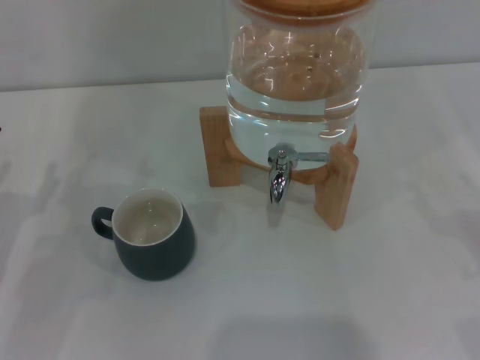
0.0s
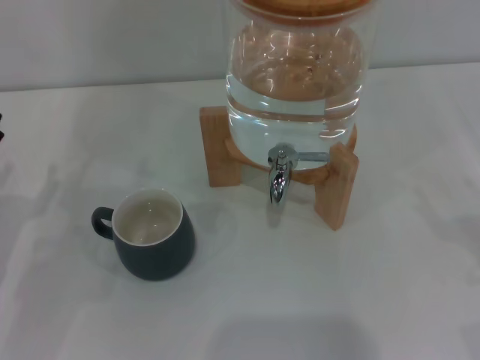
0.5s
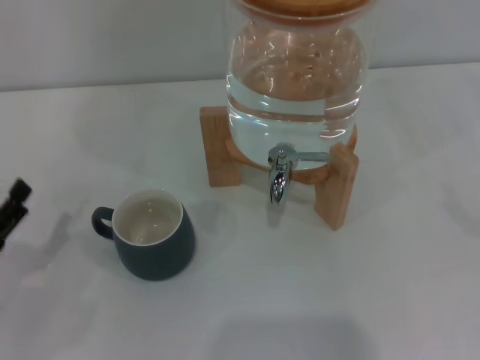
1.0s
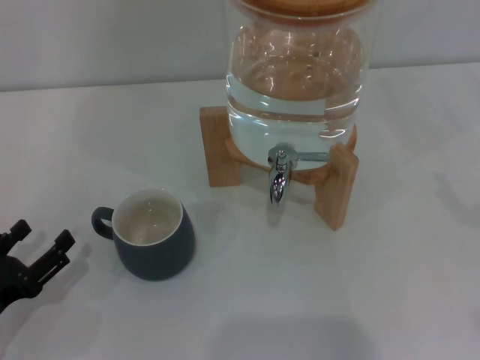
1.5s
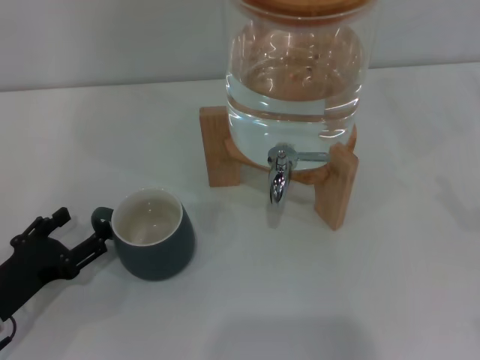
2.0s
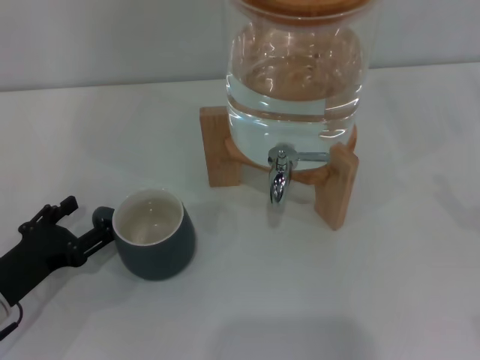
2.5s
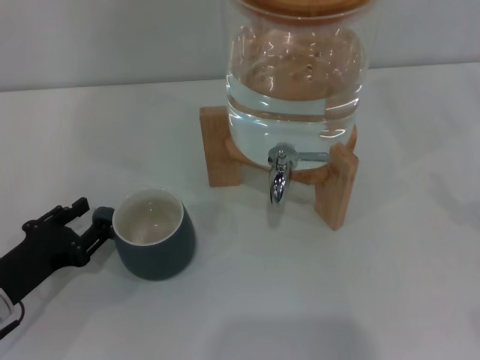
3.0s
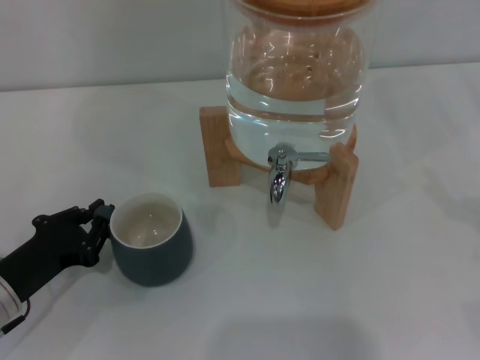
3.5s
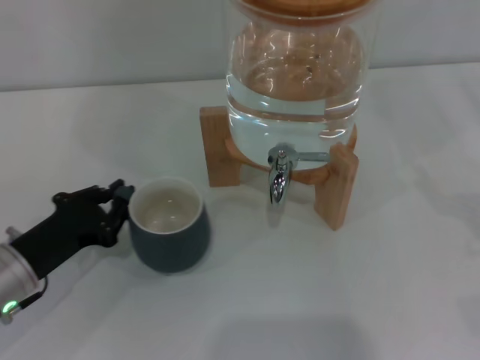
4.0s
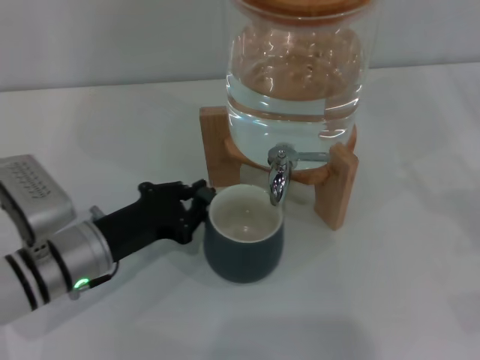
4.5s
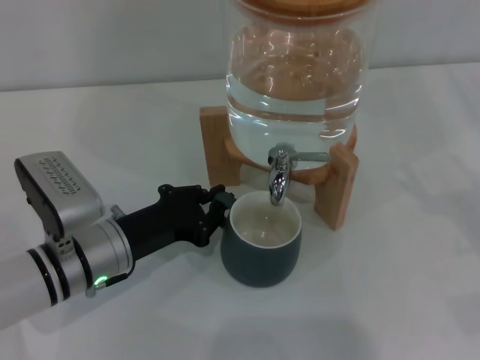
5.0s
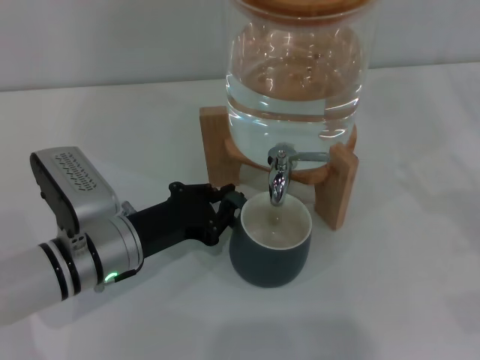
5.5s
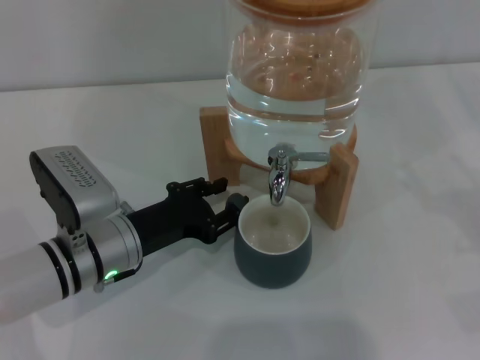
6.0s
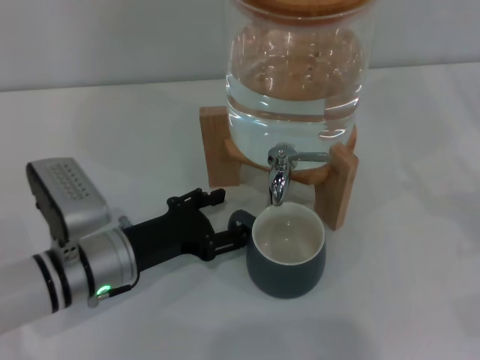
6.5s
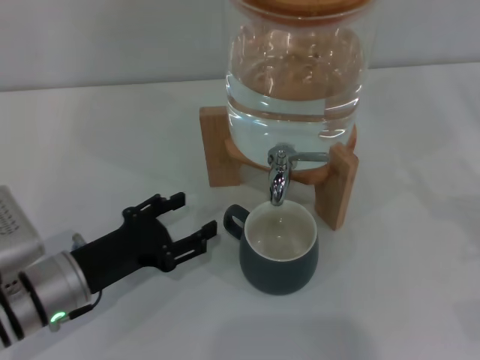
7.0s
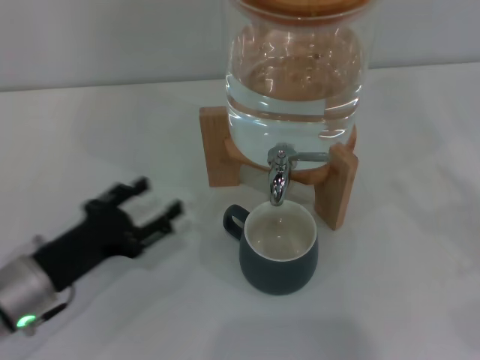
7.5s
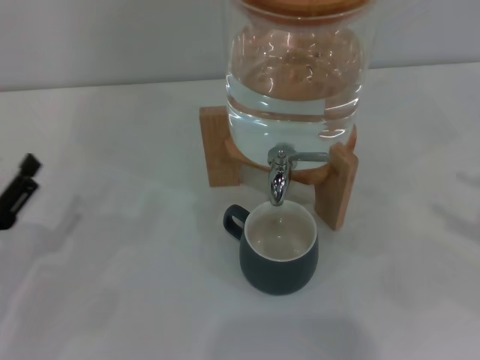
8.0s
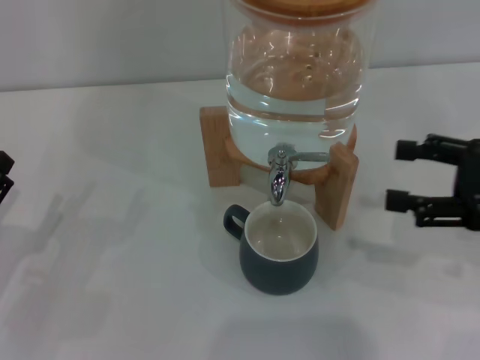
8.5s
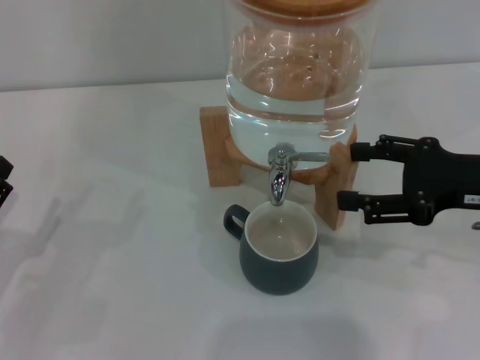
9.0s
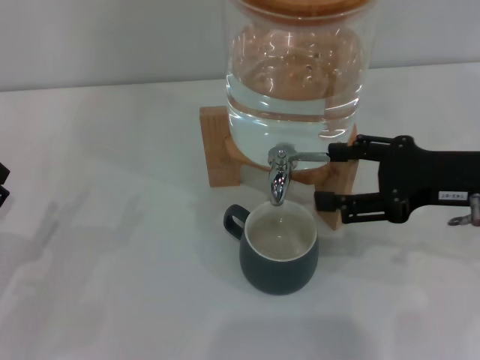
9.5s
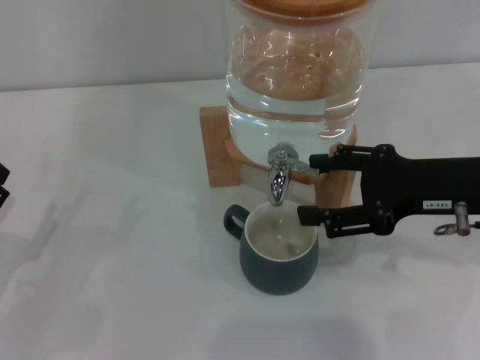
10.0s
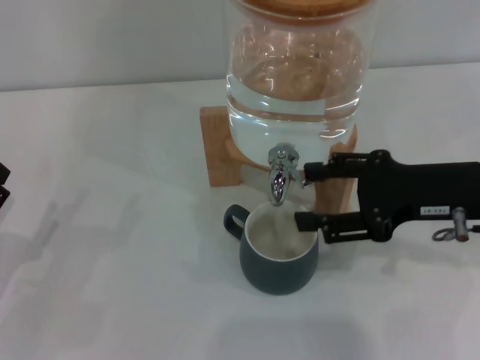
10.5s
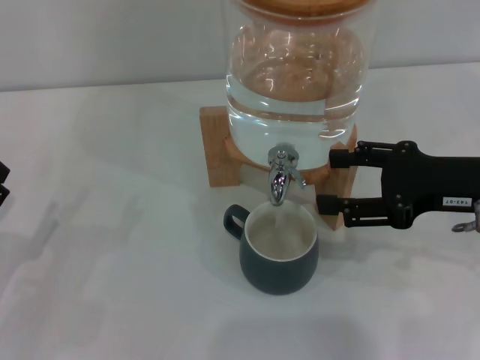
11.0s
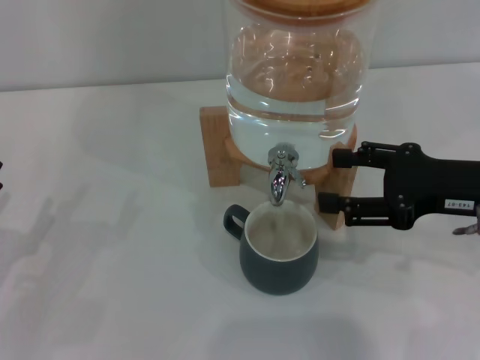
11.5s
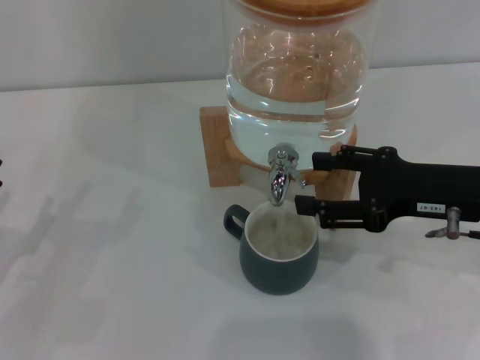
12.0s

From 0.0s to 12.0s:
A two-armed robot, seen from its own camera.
Task of the whole recording: the left gripper pick up the black cup and place it horizontally under the faucet, the right gripper turn on the faucet to fill the cup, and then turn off the faucet.
Step, from 0.0s to 7.0s: Move the cup beneath the water dispenser nozzle with the left gripper.
From 0.0s to 2.0s: The left gripper changes place by approximately 5 cm.
From 2.0s to 4.0s: The left gripper moves about 5 cm, and closes its fingers.
From 4.0s to 6.0s: The left gripper moves to the right, about 10 cm.
From 6.0s to 8.0s: The right gripper shifts some 5 cm upward; the left gripper moves to the left and backward, approximately 15 cm, and opens up.
From 8.0s to 10.0s: The right gripper heads to the left and forward, covering approximately 15 cm.
From 10.0s to 12.0s: The grippers stay close to where they were, moving slightly.

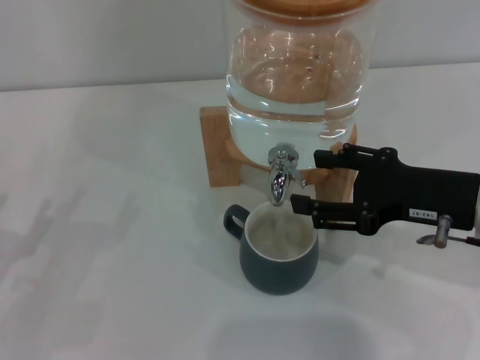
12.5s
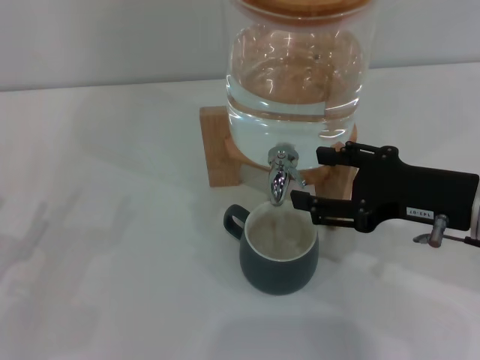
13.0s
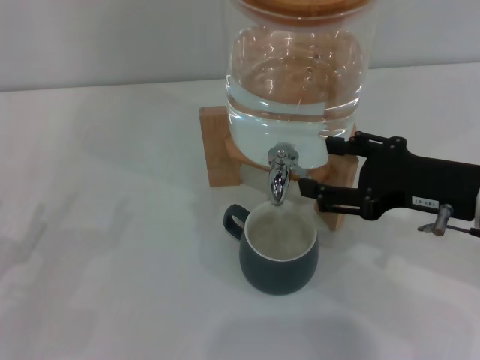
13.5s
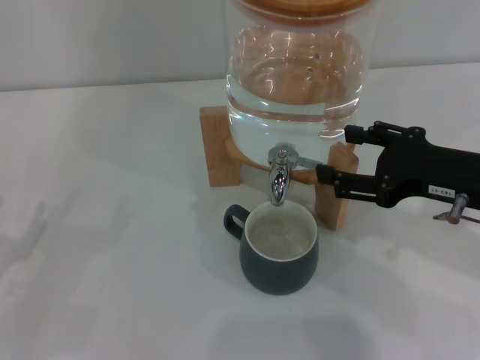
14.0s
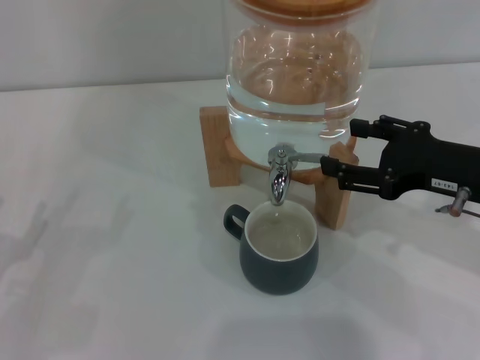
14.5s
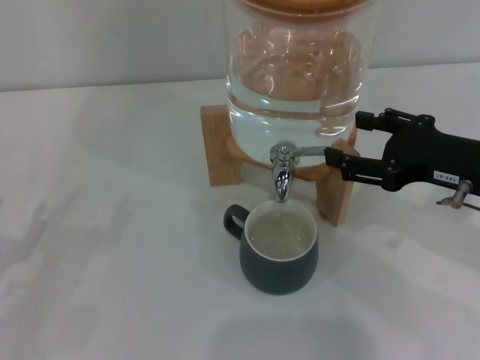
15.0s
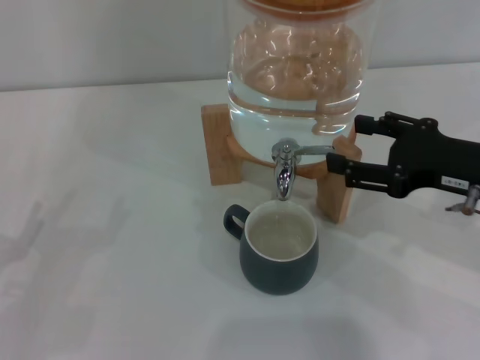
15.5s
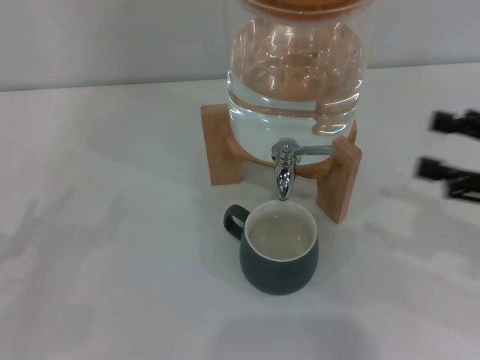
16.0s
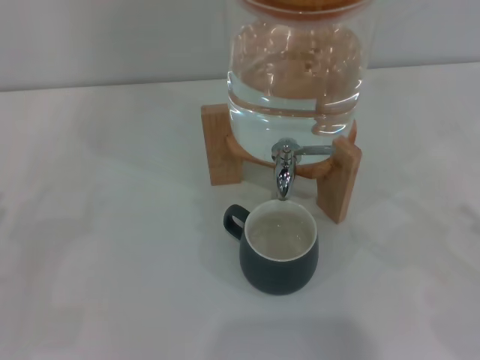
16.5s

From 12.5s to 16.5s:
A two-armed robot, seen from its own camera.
Task of the whole recording: the left gripper pick up the black cup and place it horizontally under the faucet, the right gripper turn on the faucet to fill the cup, and then turn off the faucet.
Step, from 13.5s to 15.5s: Close the dispenser valve with the right gripper.
From 12.5s to 14.5s: There are only small adjustments of the grippers.
From 14.5s to 16.5s: The right gripper heads to the right and backward, covering some 20 cm.

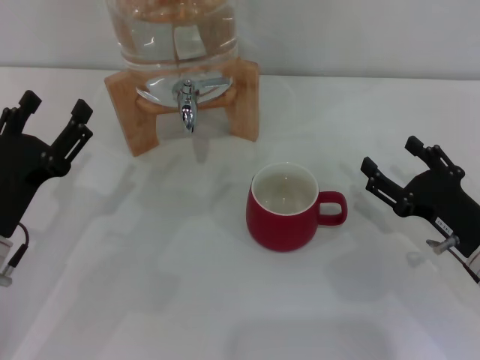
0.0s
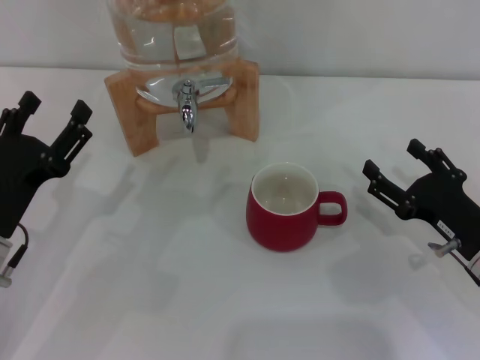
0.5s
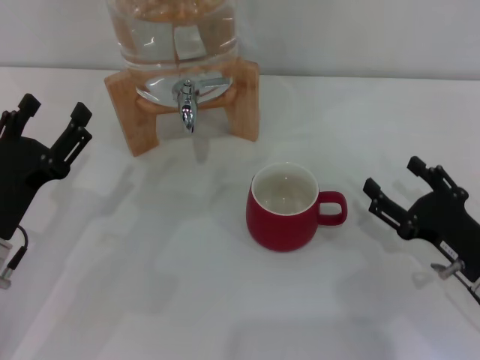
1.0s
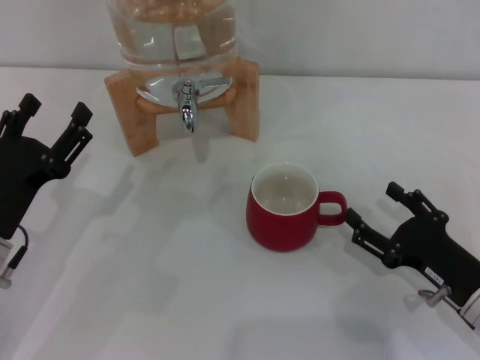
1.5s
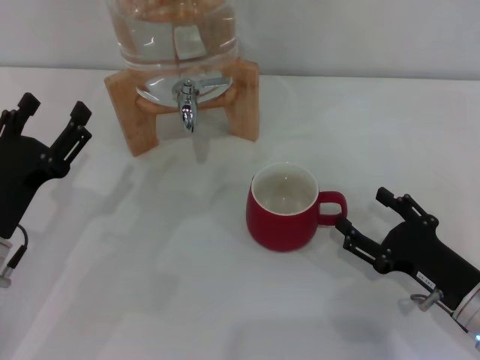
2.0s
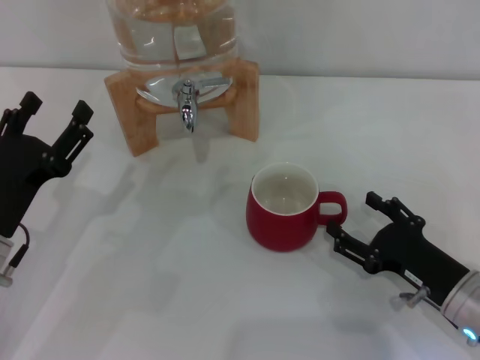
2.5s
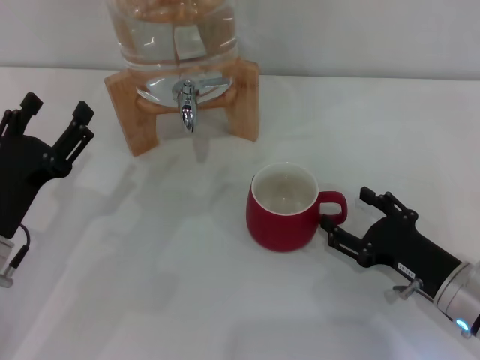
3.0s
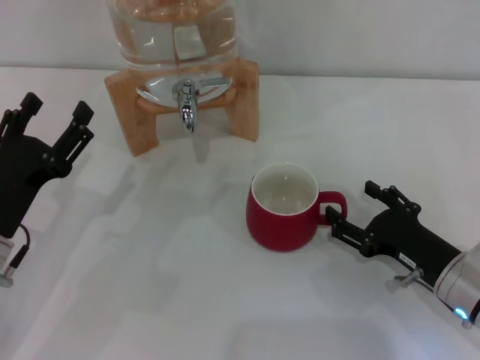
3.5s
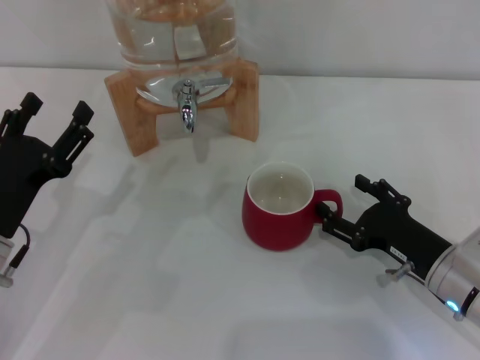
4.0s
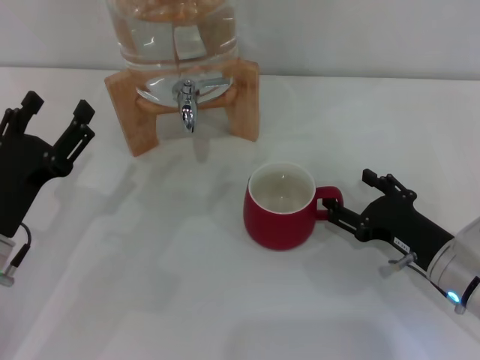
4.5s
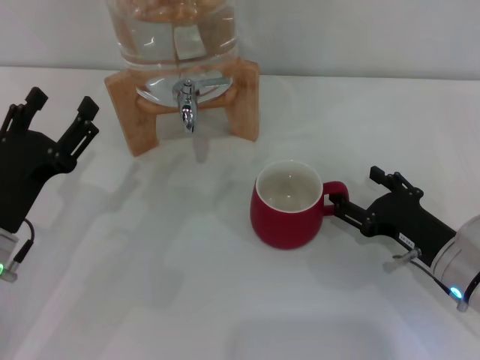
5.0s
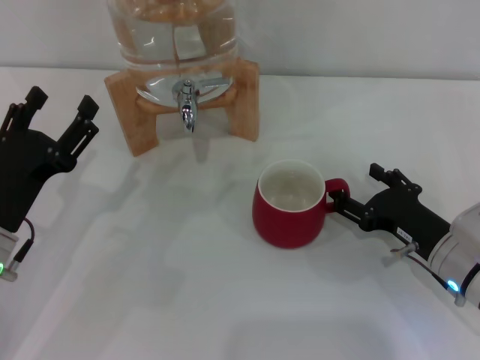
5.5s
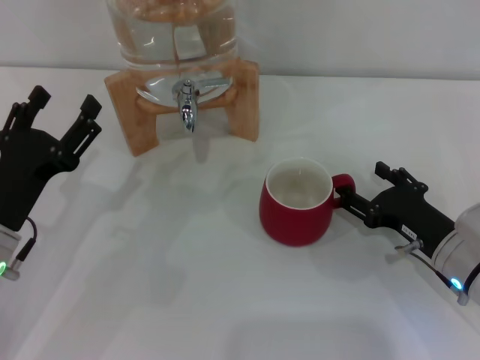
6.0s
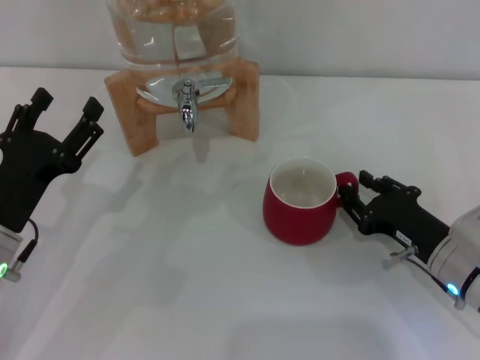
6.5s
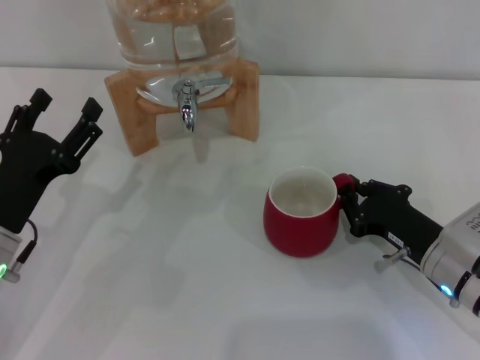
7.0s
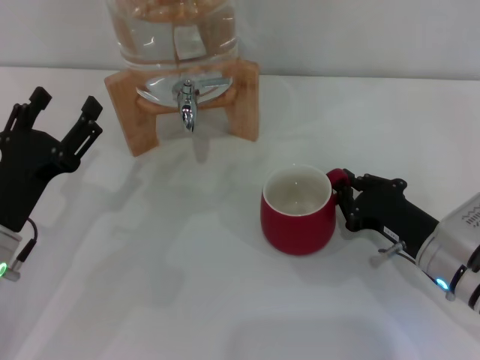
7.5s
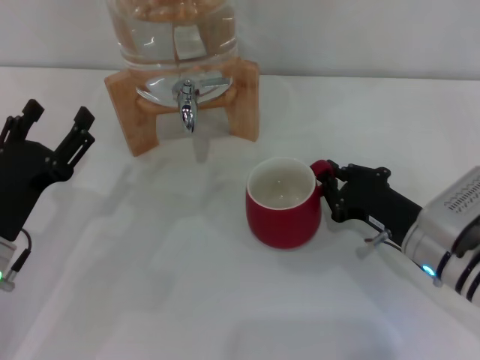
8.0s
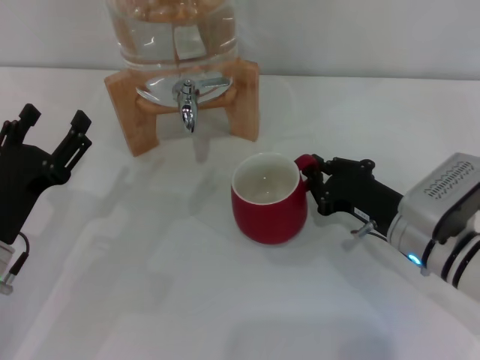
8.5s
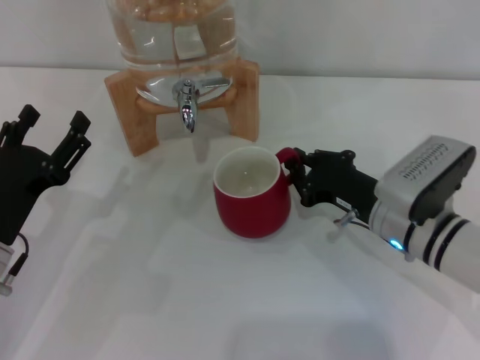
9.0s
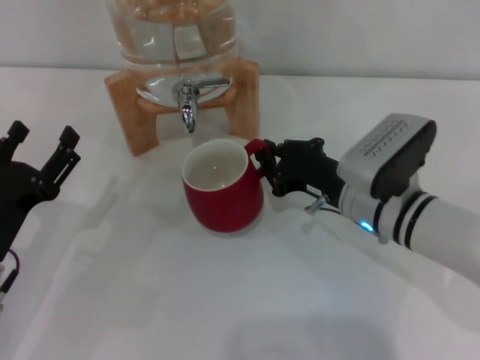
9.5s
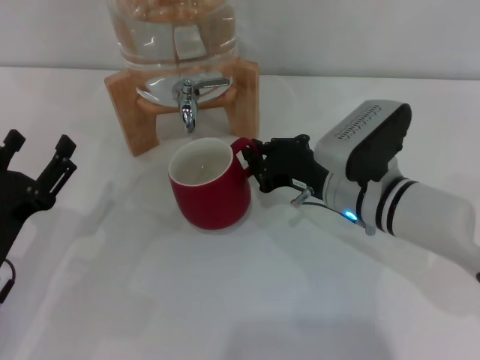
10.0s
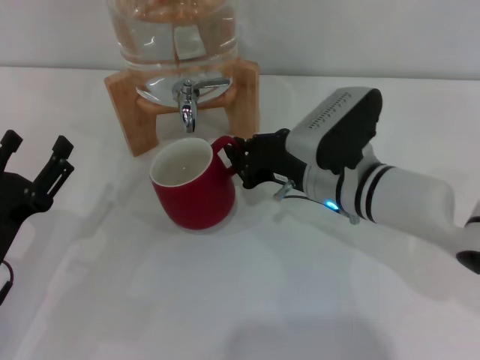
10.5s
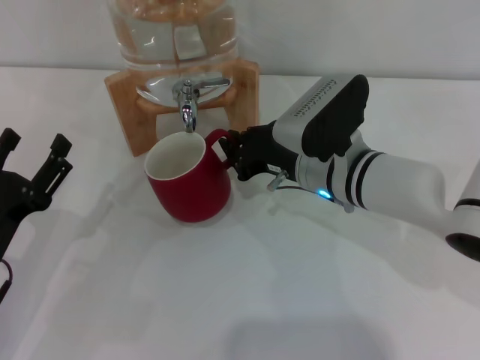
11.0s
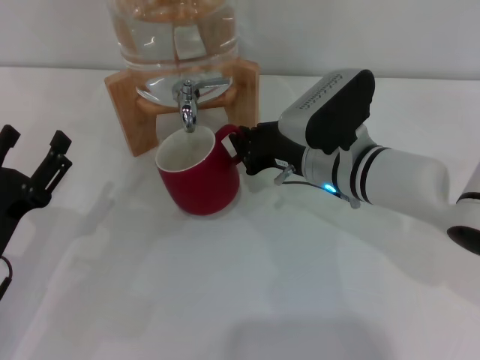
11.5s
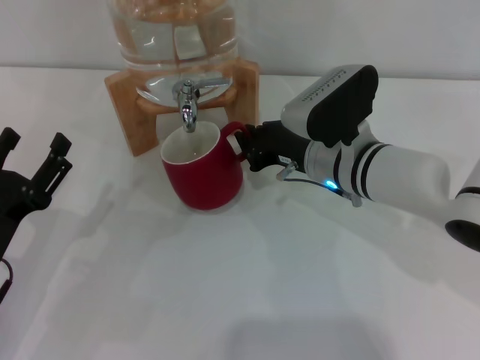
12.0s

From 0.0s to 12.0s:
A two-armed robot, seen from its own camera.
Task of the whole recording: the right gripper pick up the red cup and place it horizontally under the faucet, the left gripper turn on the faucet to fill the cup, and then turn off the faucet.
From 0.0s to 6.0s: The grippers stay close to where they were, moving slightly.
From 6.0s to 8.0s: The right gripper closes.
From 8.0s to 10.0s: The right gripper shifts roughly 10 cm to the left and forward.
From 10.0s to 12.0s: The grippers make only small movements.
